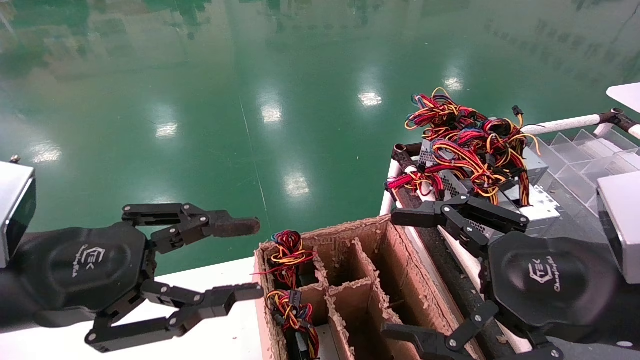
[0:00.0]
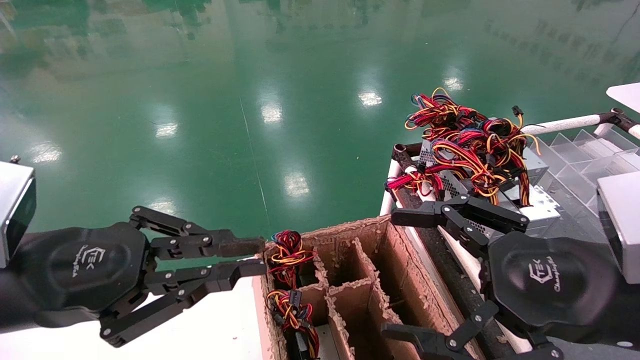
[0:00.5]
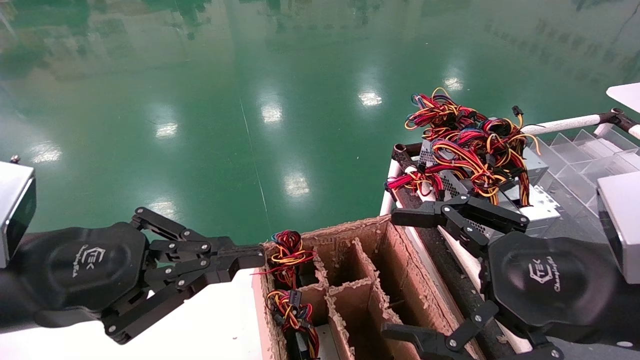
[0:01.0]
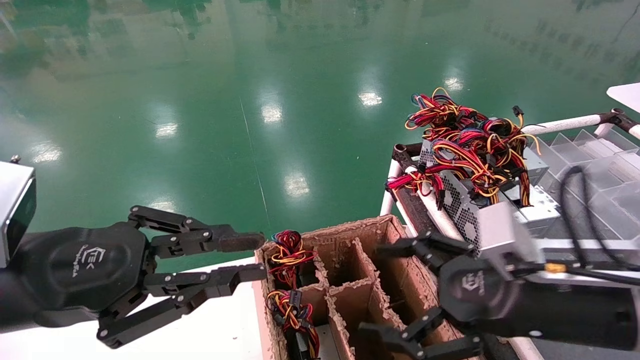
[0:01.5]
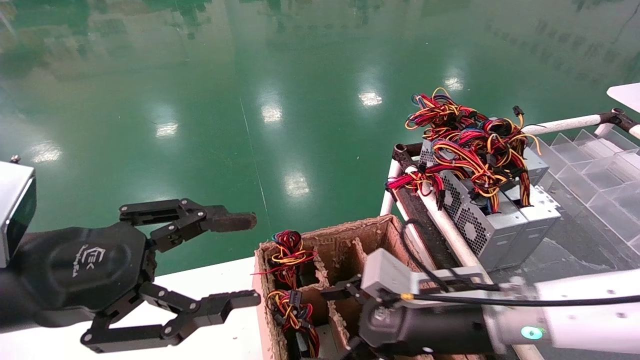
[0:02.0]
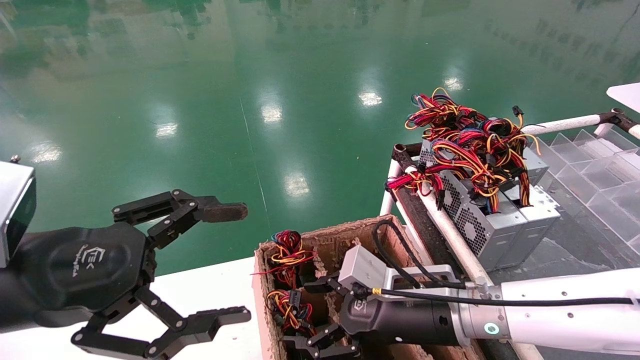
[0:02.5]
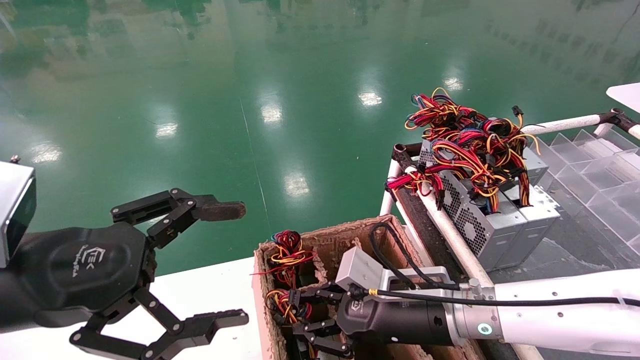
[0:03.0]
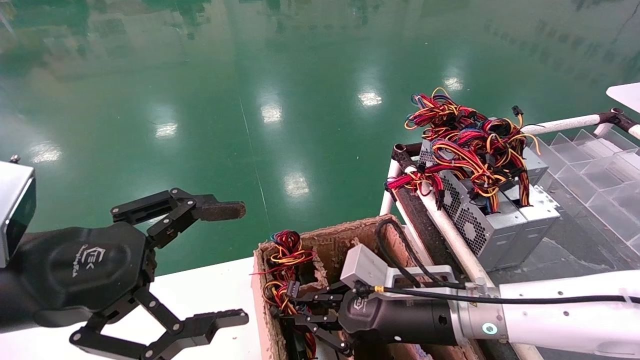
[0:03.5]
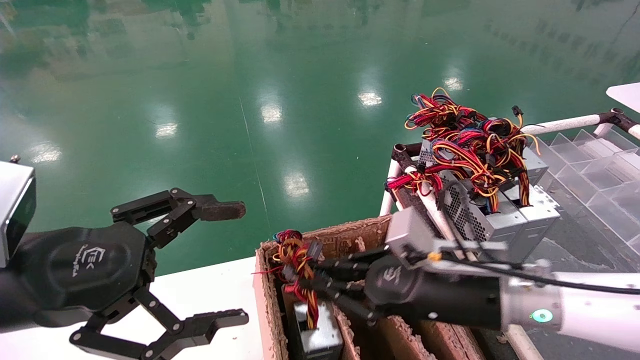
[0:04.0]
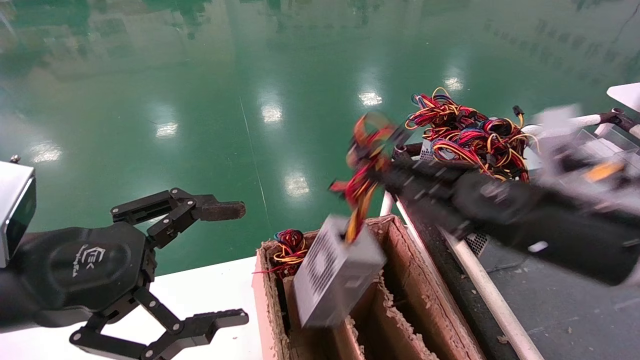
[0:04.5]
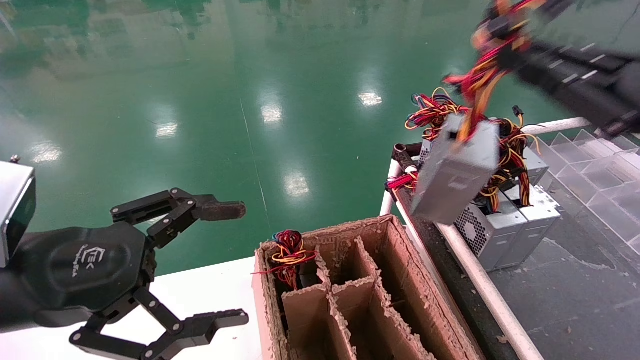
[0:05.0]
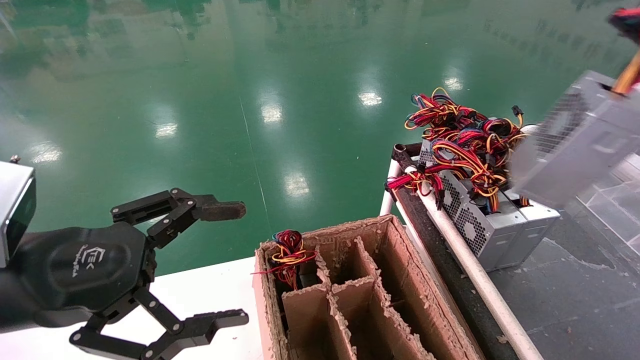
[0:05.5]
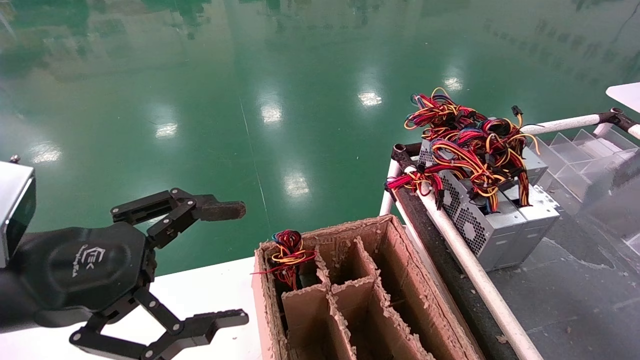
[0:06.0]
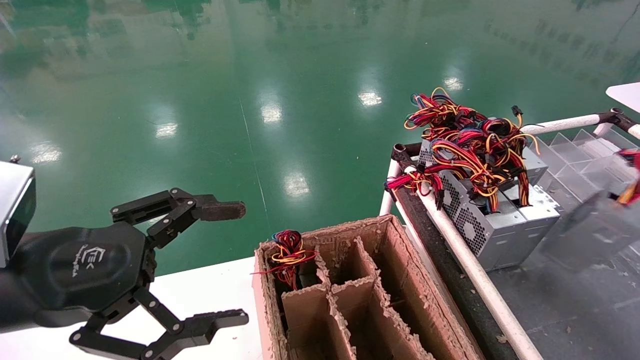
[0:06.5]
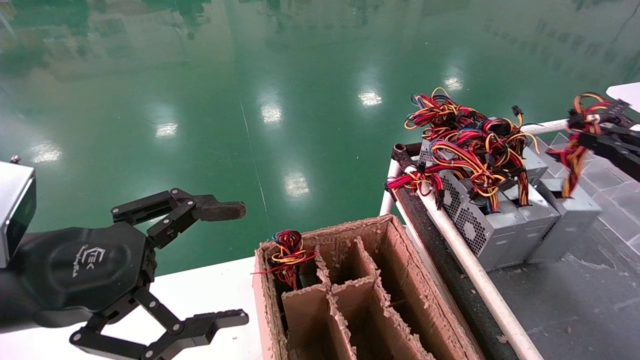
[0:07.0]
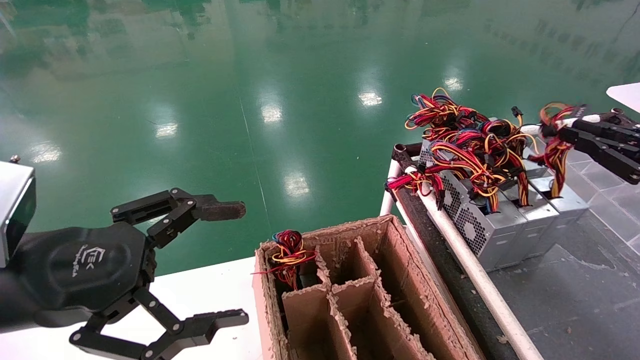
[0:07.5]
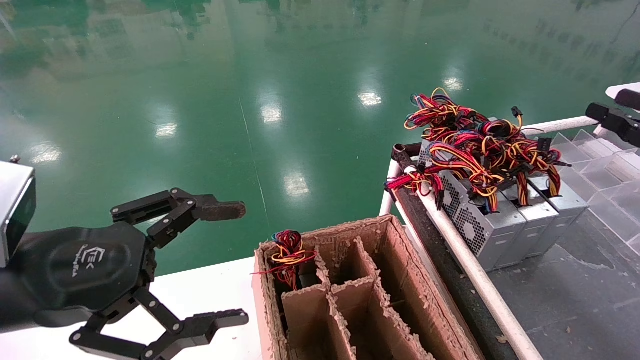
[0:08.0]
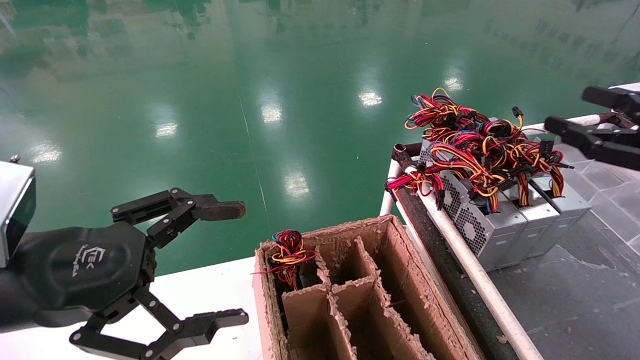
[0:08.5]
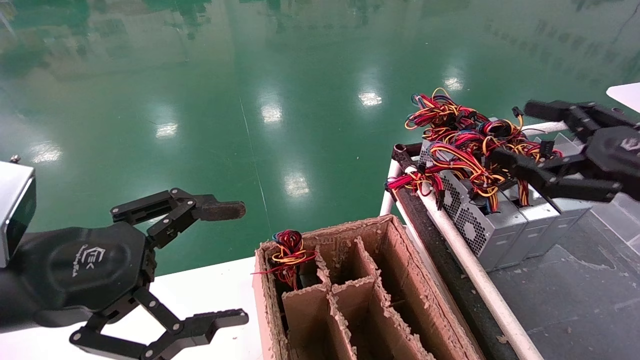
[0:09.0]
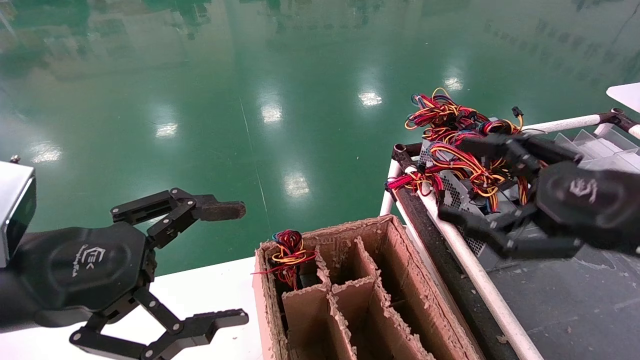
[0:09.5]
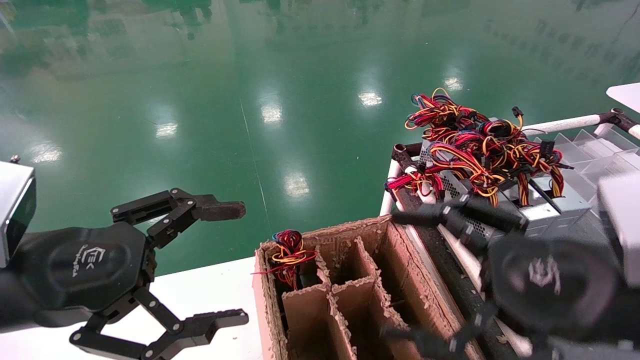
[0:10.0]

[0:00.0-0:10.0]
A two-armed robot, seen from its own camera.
Step, 0:01.0 to 0:03.5: Grab and lift the power supply from the large box.
Step, 0:04.0 to 0:07.5: Place the power supply on the operating table.
0:00.0 to 0:02.0: The left gripper closes and opens again. The right gripper shifts about 15 cm forward, downward and to the left.
0:02.0 to 0:04.0: The right gripper closes its fingers. The left gripper opens up.
0:04.0 to 0:06.0: The right gripper is displaced to the right and upward by roughly 40 cm.
0:06.0 to 0:08.0: The right gripper goes some 15 cm forward and to the left.
0:08.0 to 0:10.0: The right gripper is displaced to the left and backward by roughly 25 cm, and opens its fingers.

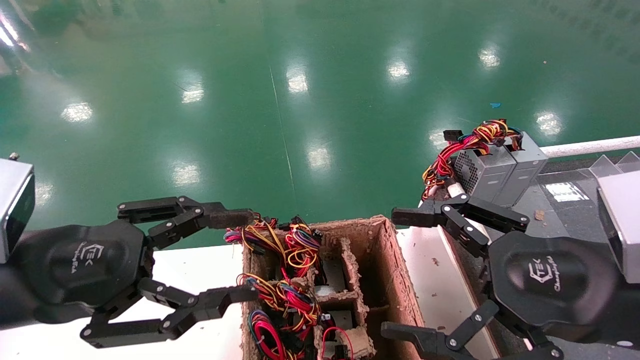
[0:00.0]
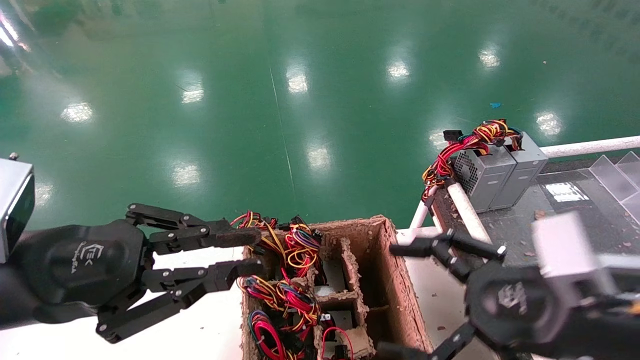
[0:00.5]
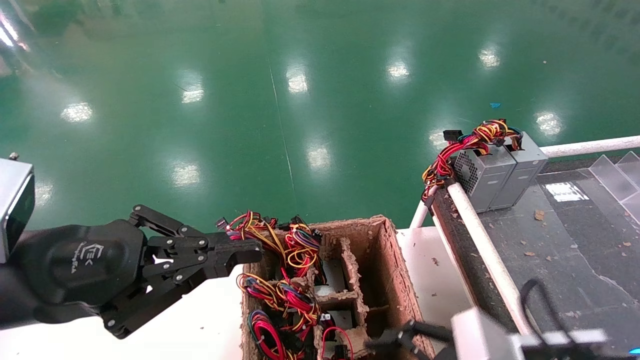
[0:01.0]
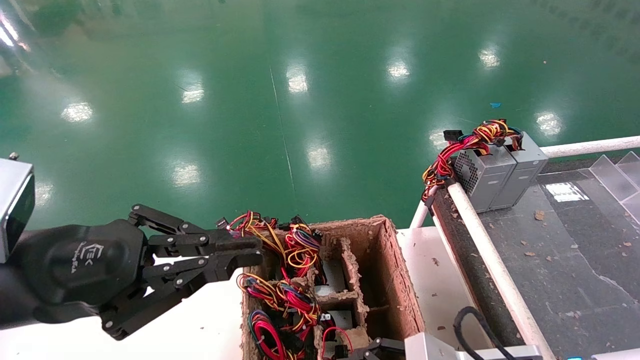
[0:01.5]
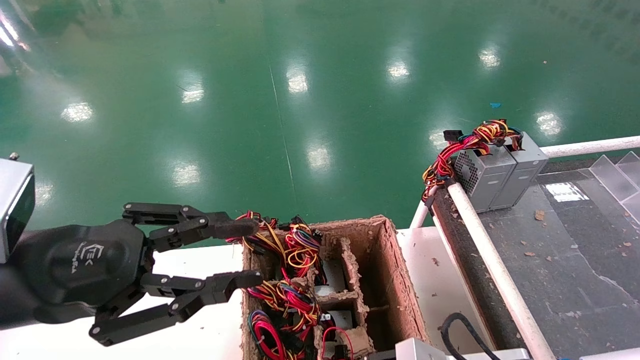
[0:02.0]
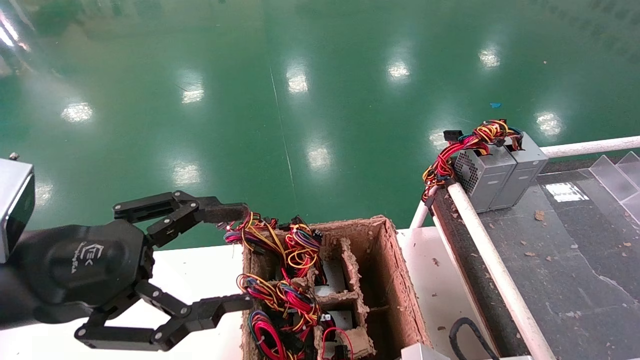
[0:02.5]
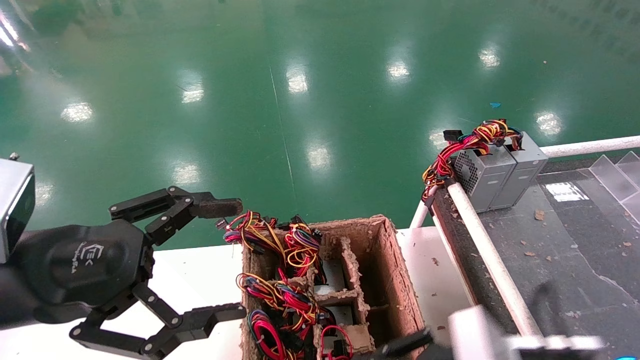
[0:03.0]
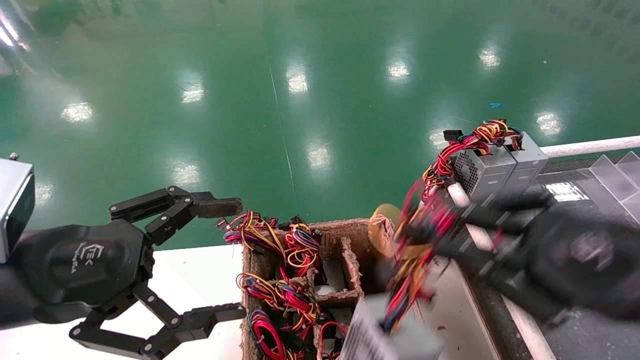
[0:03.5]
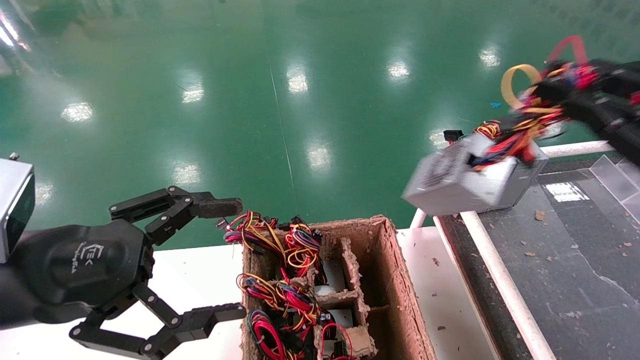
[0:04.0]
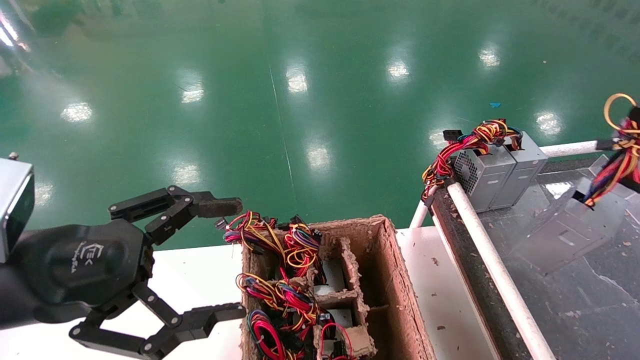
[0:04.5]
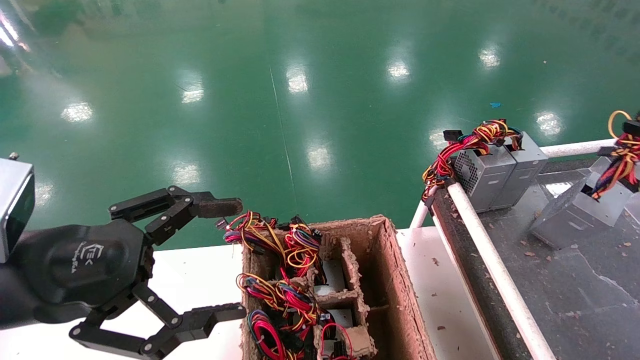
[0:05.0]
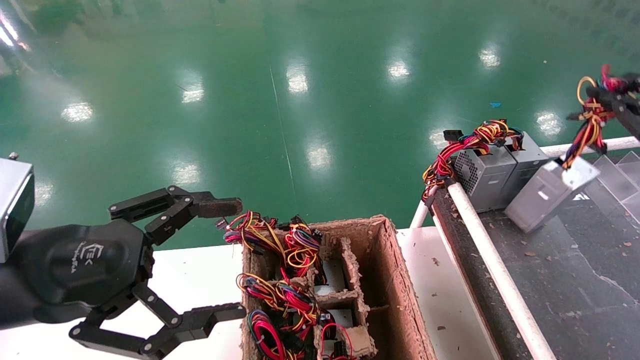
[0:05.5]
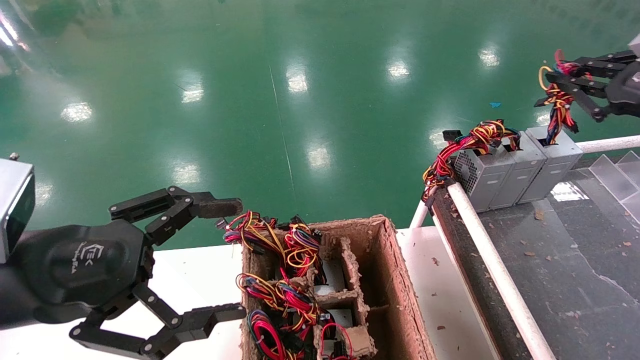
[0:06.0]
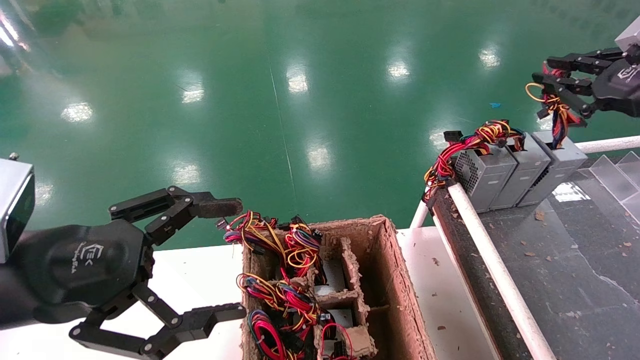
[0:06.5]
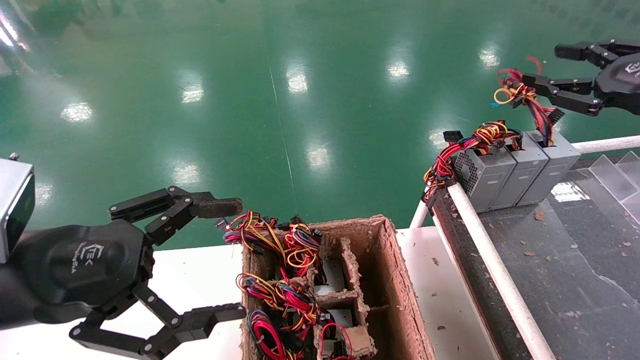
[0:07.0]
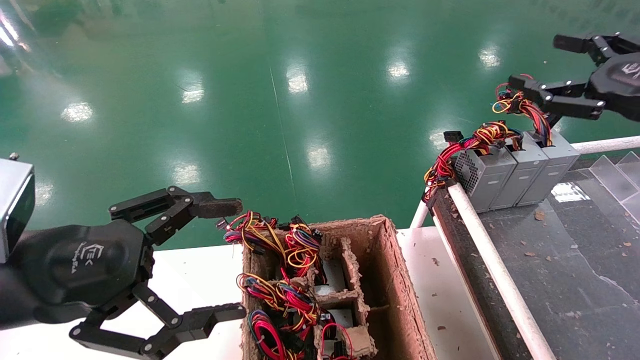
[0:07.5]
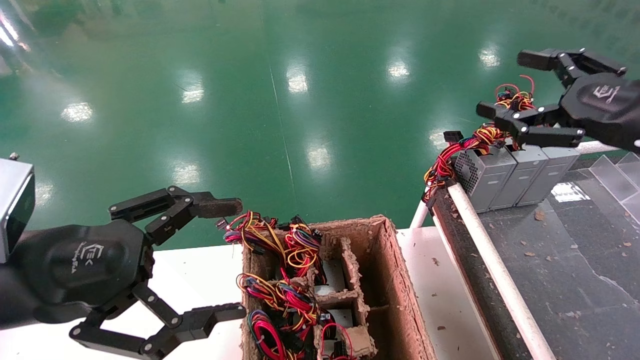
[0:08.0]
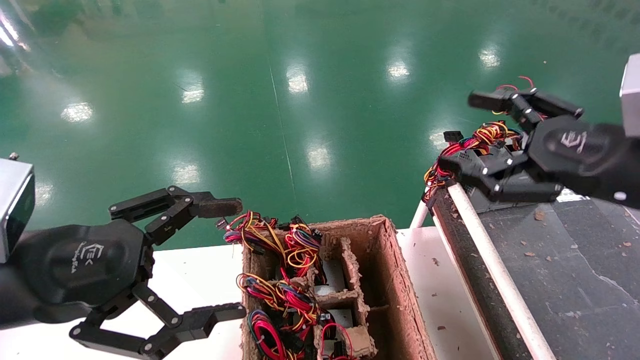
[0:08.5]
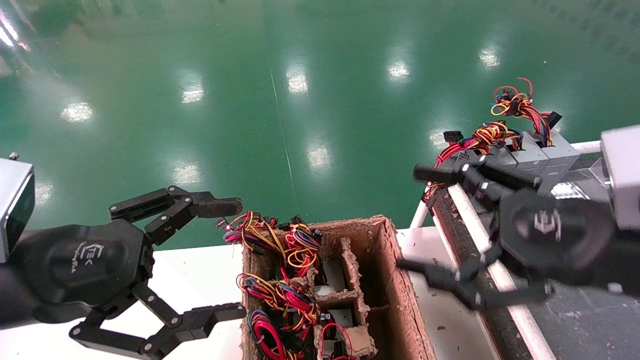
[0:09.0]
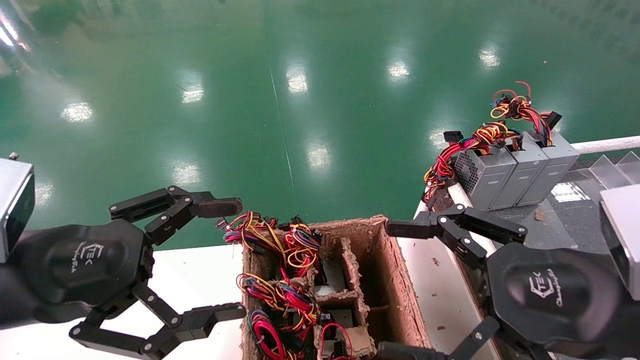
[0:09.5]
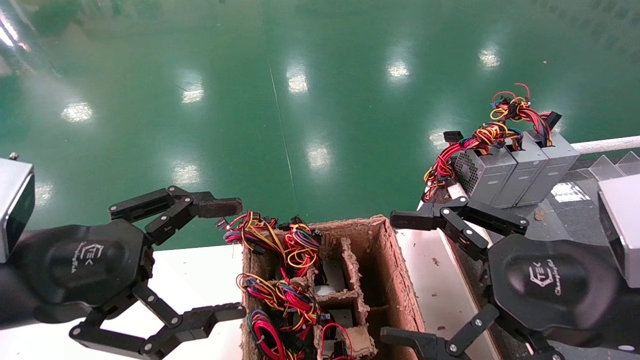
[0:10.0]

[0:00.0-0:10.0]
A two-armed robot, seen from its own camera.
Step, 0:01.0 to 0:02.0: Grab and lift the power supply from the large box.
Step, 0:02.5 to 0:06.5: Place the power supply on the operating table.
0:00.0 to 0:02.0: The right gripper is displaced downward and to the left by some 15 cm, and closes its fingers; the left gripper closes.
0:02.0 to 0:04.0: The left gripper opens up. Meanwhile the right gripper is displaced upward and to the right by approximately 30 cm, and closes up.
0:04.0 to 0:06.0: The right gripper heads forward and to the right, covering roughly 15 cm.
0:06.0 to 0:08.0: The right gripper travels to the left by about 5 cm, and opens.
0:08.0 to 0:10.0: The right gripper travels backward, to the left and downward by about 20 cm.
